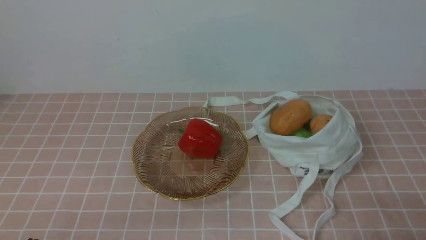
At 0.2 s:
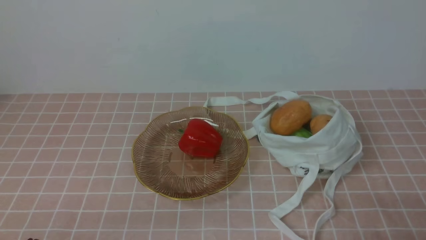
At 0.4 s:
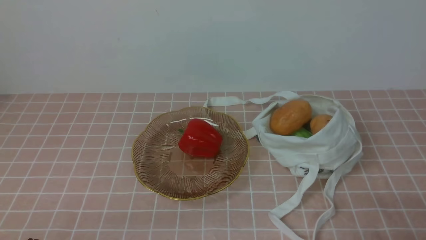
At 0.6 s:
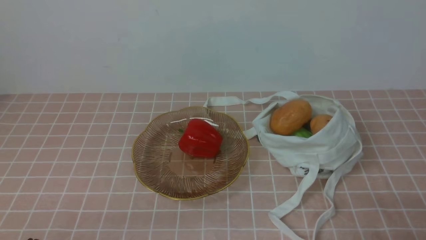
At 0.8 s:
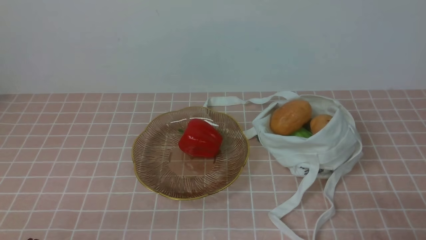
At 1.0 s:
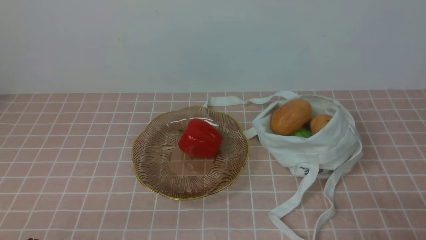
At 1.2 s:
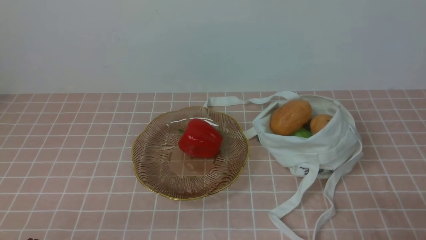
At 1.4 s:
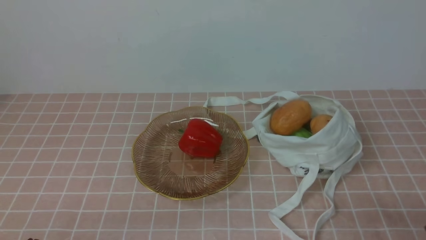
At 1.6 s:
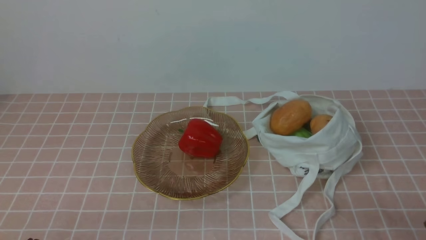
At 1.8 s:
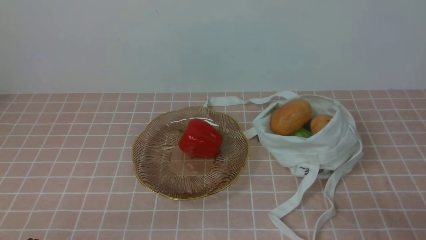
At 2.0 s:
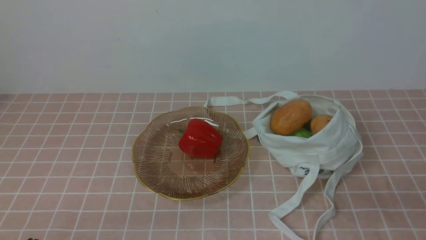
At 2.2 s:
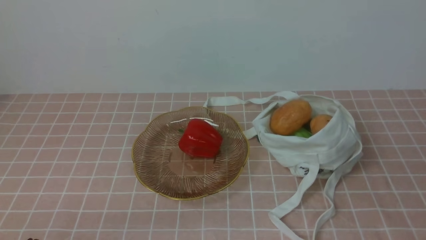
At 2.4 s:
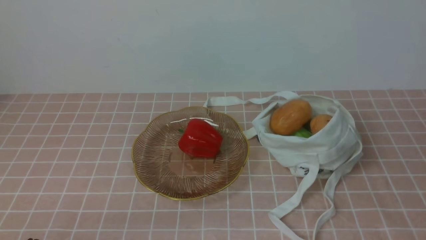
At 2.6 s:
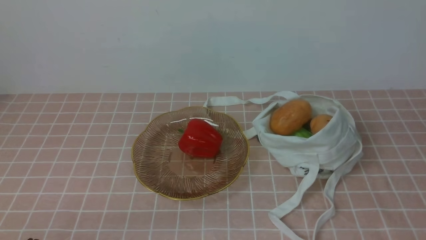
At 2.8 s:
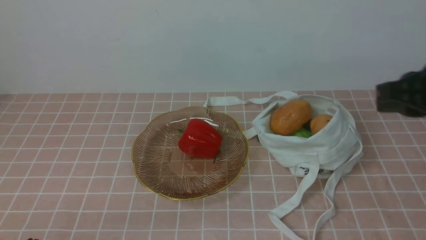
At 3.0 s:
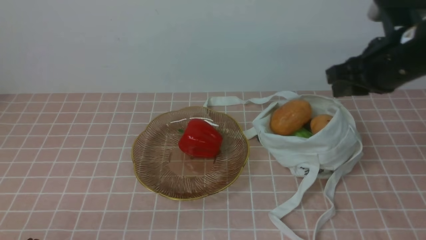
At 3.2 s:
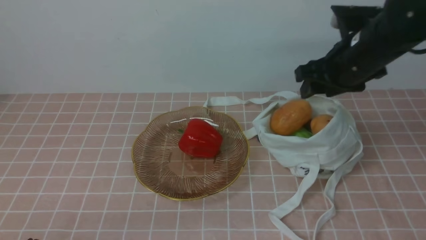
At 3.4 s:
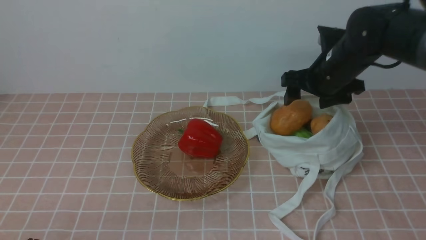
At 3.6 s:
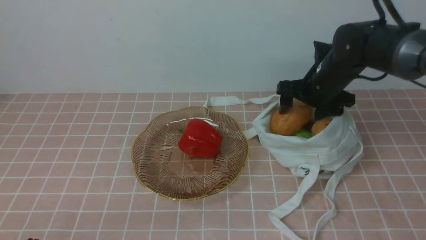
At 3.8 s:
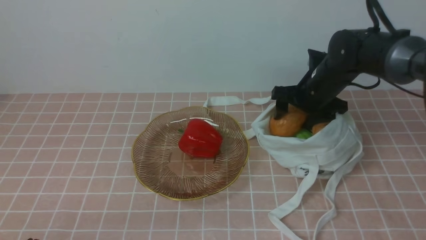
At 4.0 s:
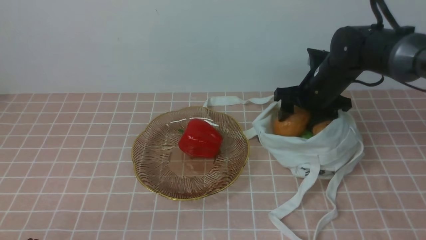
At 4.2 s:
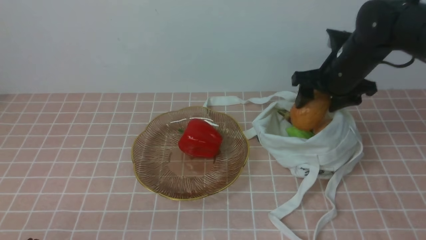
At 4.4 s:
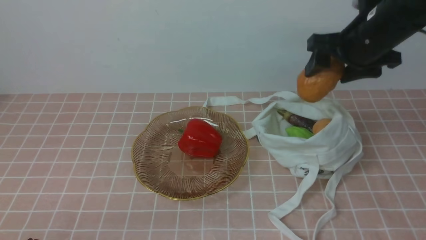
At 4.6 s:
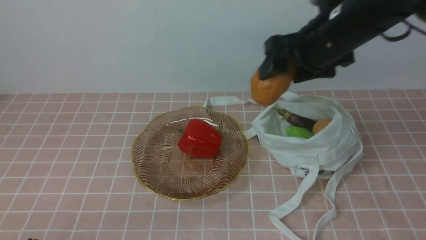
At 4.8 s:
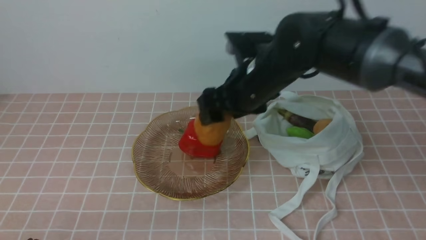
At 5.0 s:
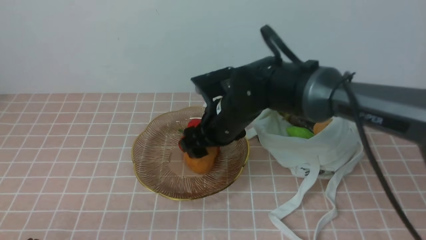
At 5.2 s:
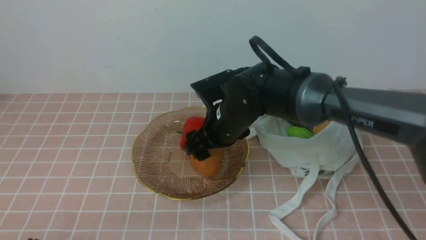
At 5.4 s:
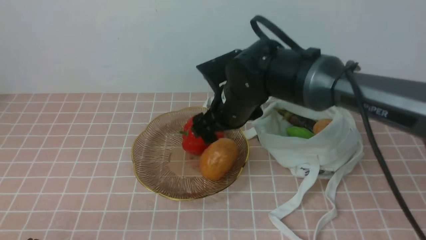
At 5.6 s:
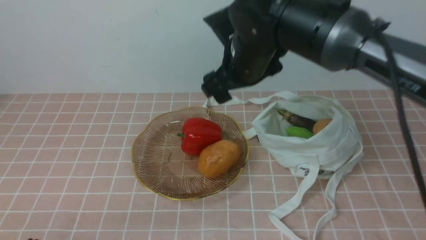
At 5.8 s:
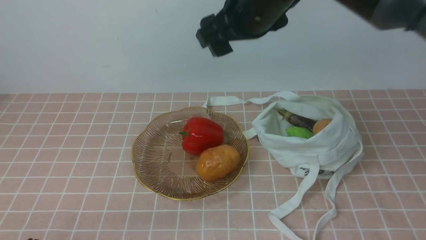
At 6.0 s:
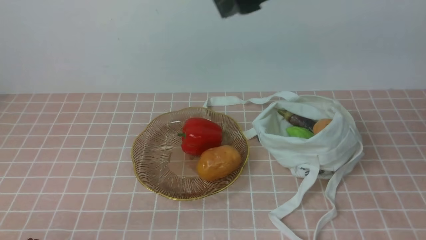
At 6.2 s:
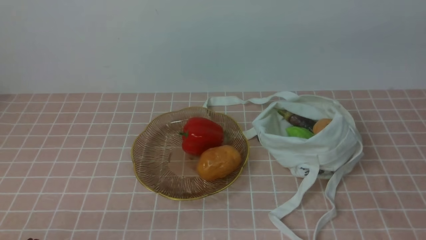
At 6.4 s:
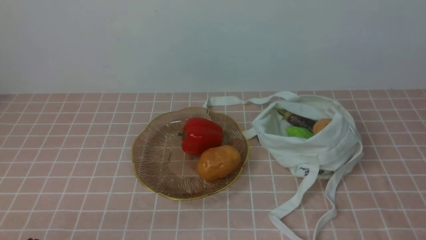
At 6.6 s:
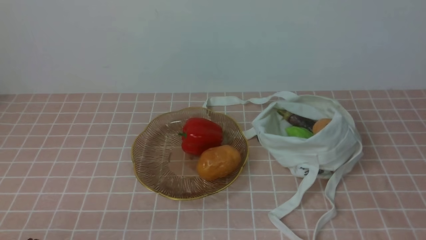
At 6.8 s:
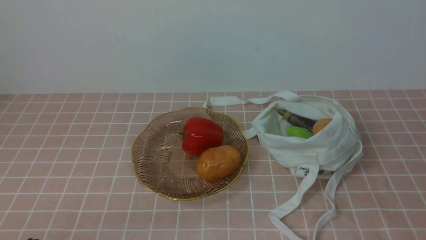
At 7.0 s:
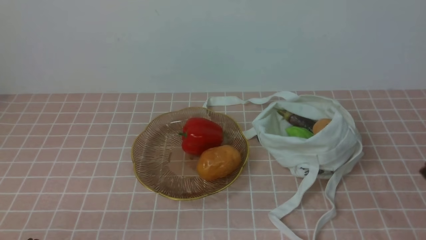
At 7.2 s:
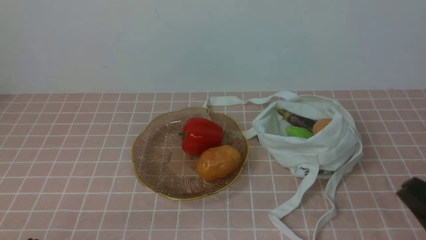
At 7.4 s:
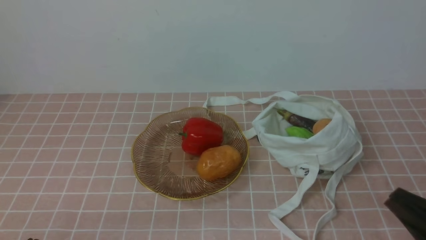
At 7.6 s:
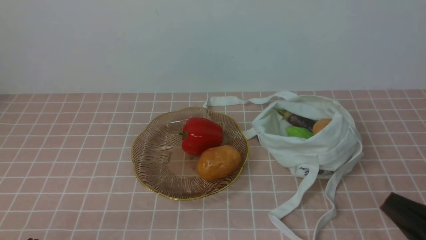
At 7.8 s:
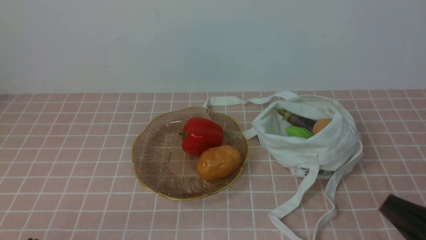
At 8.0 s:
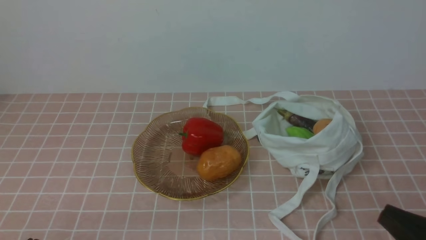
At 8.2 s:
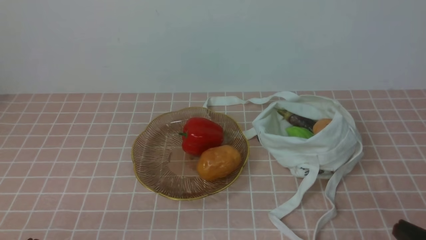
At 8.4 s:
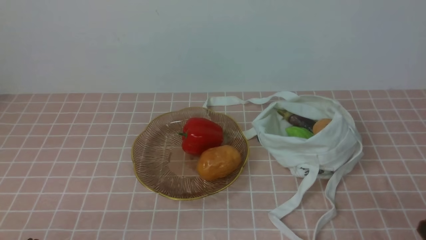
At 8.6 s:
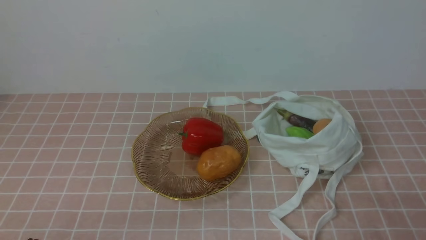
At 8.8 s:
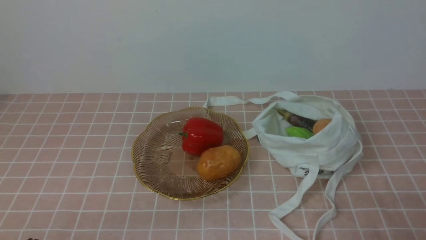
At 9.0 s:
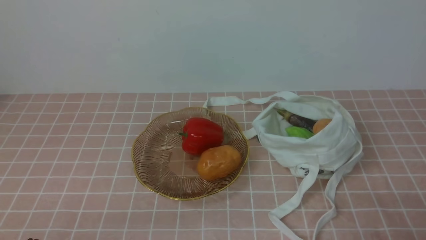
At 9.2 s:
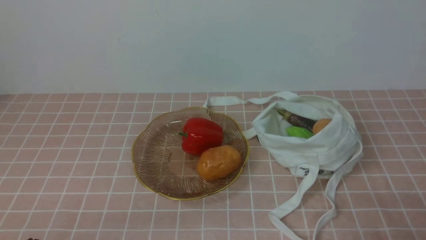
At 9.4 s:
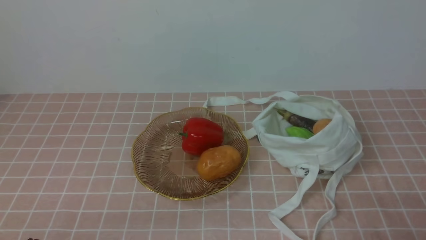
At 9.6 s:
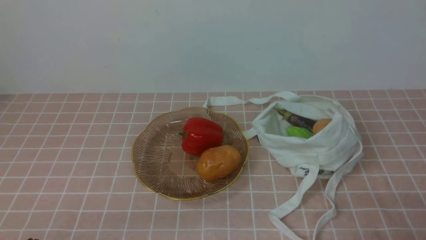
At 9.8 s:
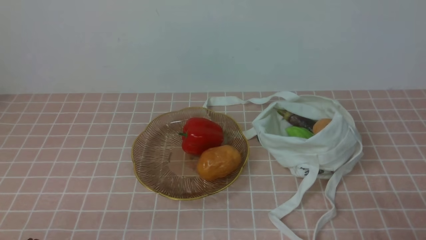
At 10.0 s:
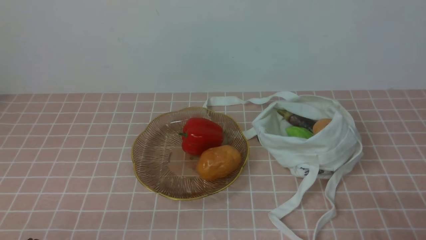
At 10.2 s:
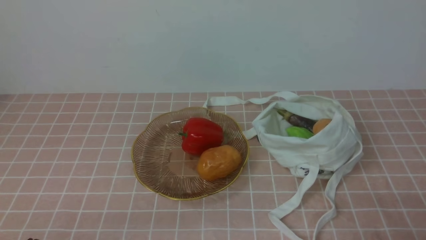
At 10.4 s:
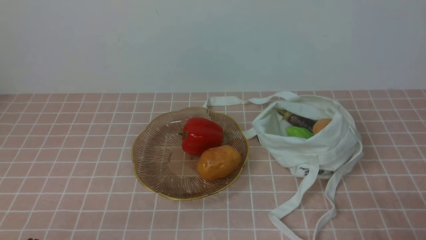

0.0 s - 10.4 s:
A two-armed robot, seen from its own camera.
Task of the whole recording: take vegetables from bag on pink coffee tablecloth place on plate.
Step, 0.0 s - 3.8 s: Grasp the potato with right gripper.
Step, 4.0 s - 5.4 s: Place the potato on the plate with right gripper.
1.4 s - 3.0 s: The right gripper is displaced forward and upward by about 30 cm, and opens its fingers.
3.0 s - 4.4 s: The right gripper shifts roughly 5 cm forward, reaches about 10 cm downward, then returns, and opens its fingers.
4.4 s - 6.0 s: The right gripper travels upward, backward and to the left by approximately 25 cm, and closes.
6.0 s - 7.4 s: The right gripper is displaced downward, backward and to the right by some 35 cm, and closes.
7.4 s - 9.0 s: The right gripper shifts some 10 cm downward and to the right.
9.0 s - 10.4 s: Both grippers stay put.

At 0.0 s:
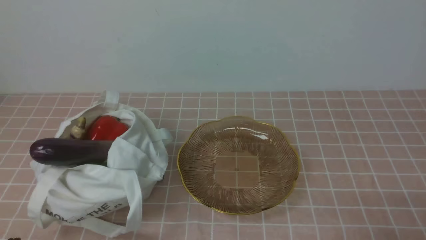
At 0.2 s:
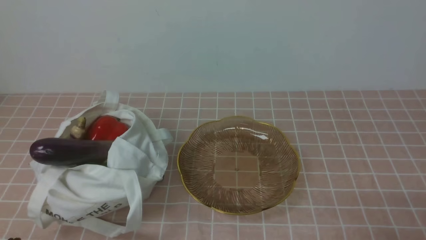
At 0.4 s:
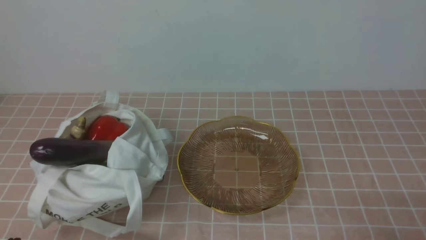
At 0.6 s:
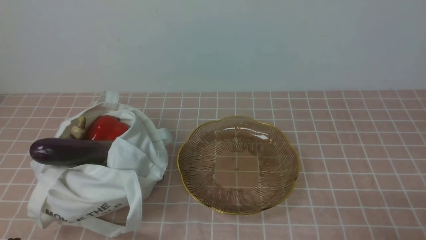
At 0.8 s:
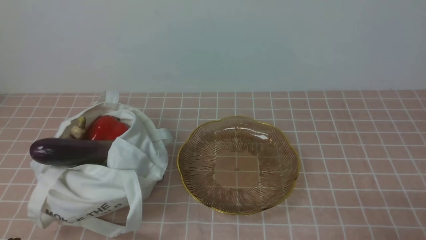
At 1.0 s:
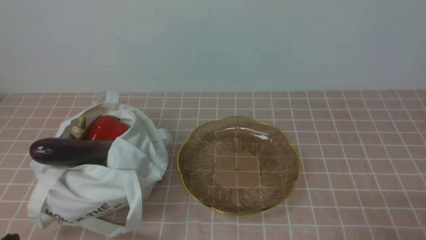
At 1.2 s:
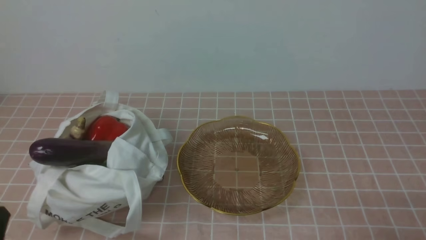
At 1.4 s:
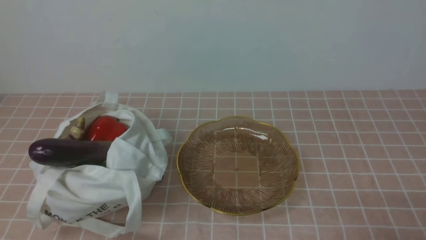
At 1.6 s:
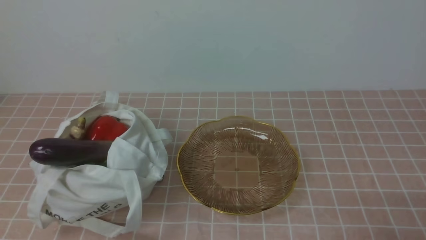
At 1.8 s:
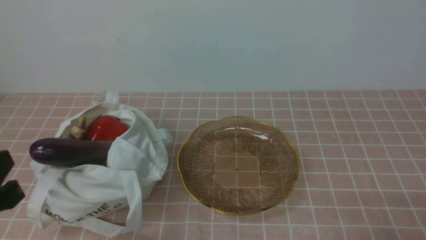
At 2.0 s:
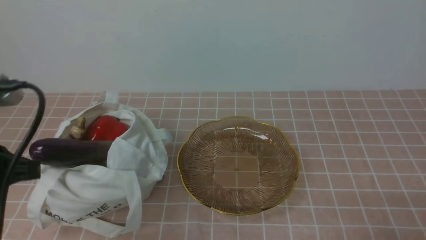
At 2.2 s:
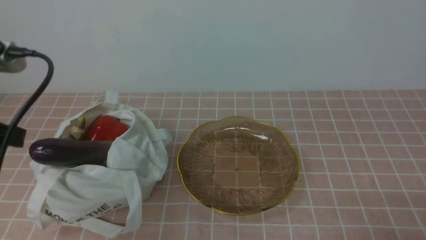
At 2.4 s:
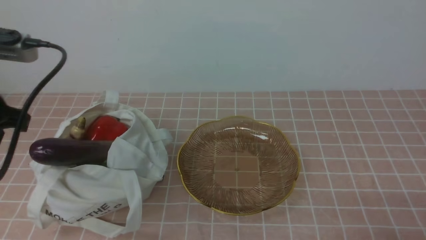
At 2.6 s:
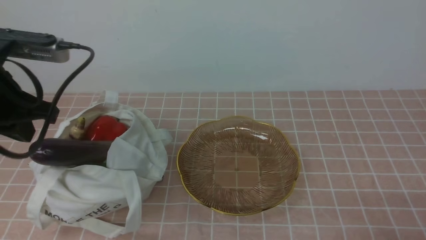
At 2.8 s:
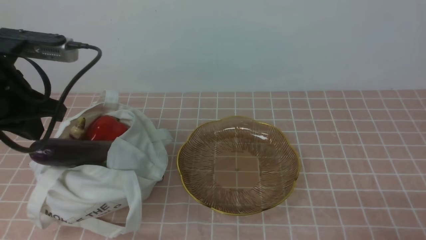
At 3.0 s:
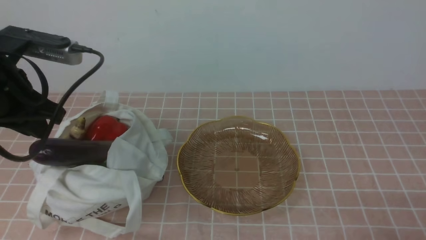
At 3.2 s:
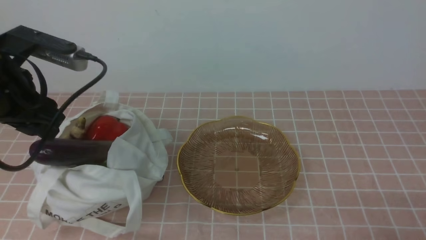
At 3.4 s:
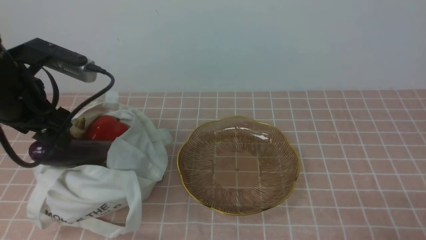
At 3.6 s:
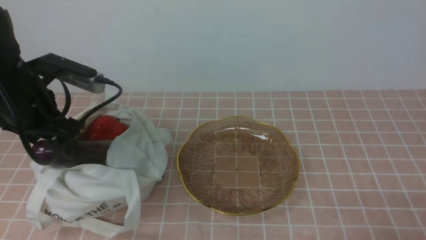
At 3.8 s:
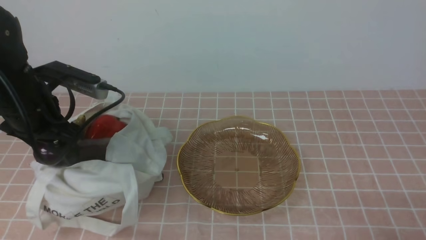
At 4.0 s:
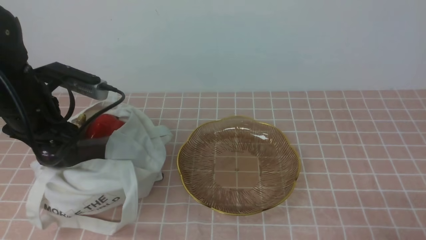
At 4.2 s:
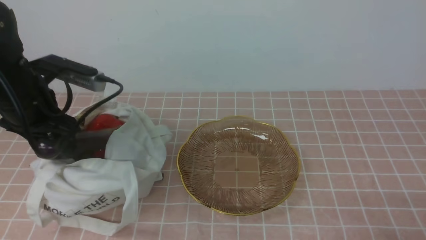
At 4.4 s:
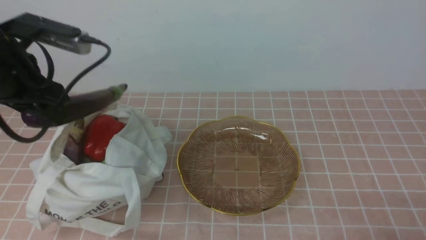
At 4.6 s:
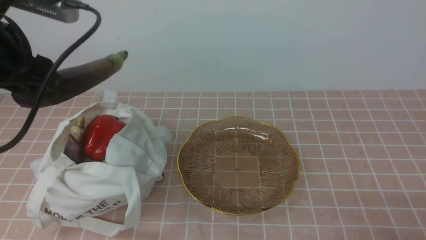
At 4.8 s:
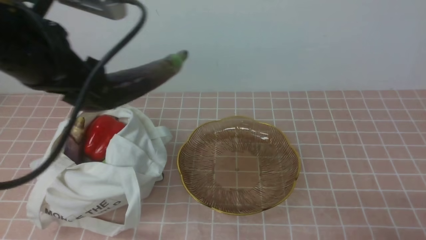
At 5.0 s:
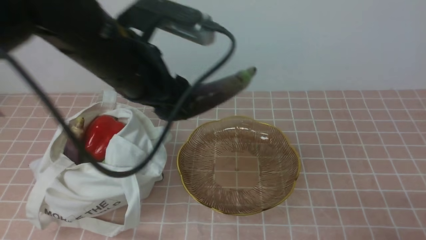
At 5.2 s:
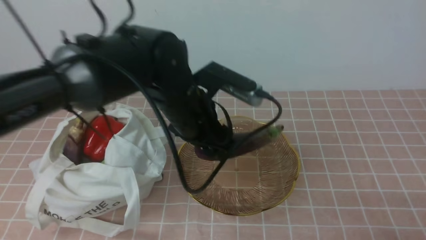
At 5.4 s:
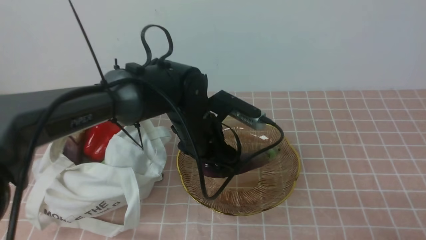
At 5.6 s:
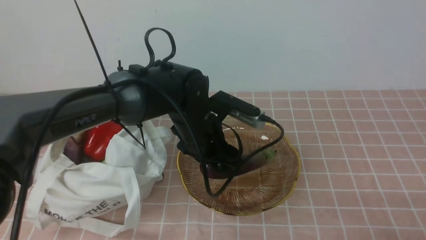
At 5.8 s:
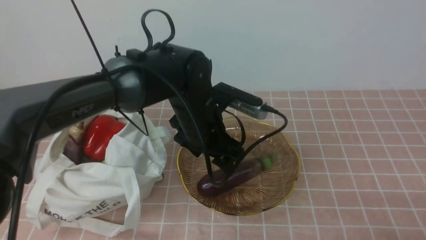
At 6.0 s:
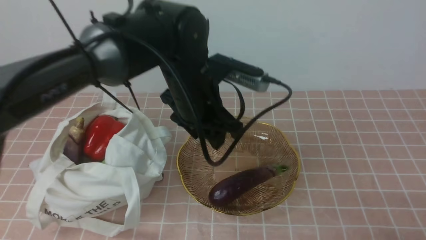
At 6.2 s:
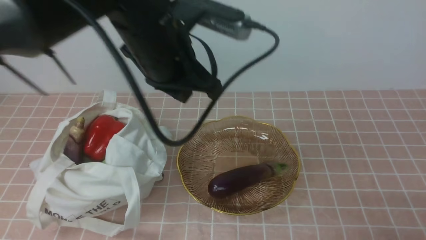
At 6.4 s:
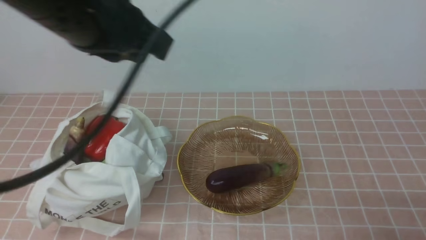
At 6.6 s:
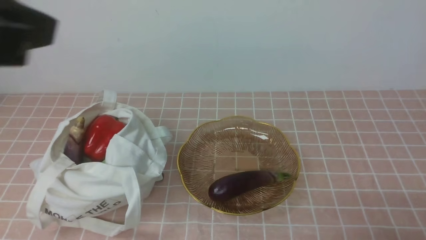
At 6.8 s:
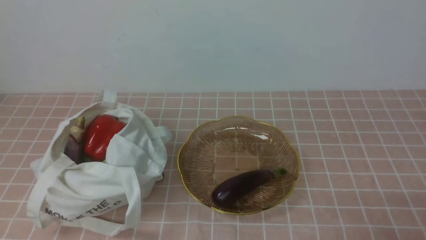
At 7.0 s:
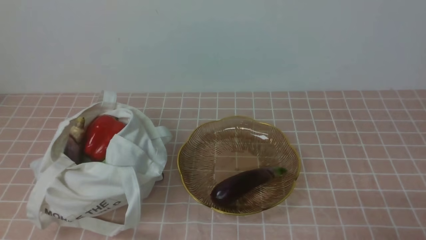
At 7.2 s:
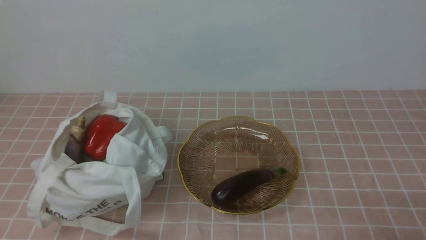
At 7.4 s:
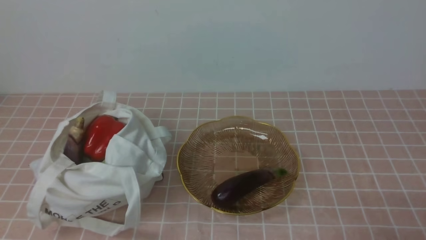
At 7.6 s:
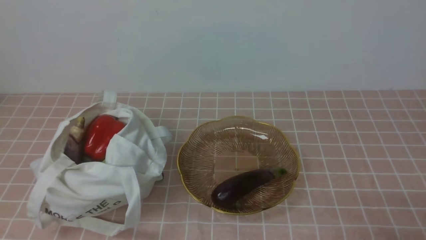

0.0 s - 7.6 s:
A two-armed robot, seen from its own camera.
Task of the whole recording: take vegetables from bag on pink coffee tablecloth place on plate.
Step, 0.0 s - 3.8 s: Grasp the eggplant with left gripper.
Step, 4.0 s - 6.0 s: Place the eggplant on the plate with left gripper.
1.6 s - 3.0 s: The left gripper moves forward, approximately 20 cm, and opens its fingers.
3.0 s - 4.6 s: The left gripper shifts approximately 5 cm upward, and opens its fingers.
4.6 s - 6.0 s: The left gripper shifts some 20 cm to the right and downward.
6.0 s - 7.6 s: The left gripper is displaced backward and to the left by approximately 40 cm, and closes.
